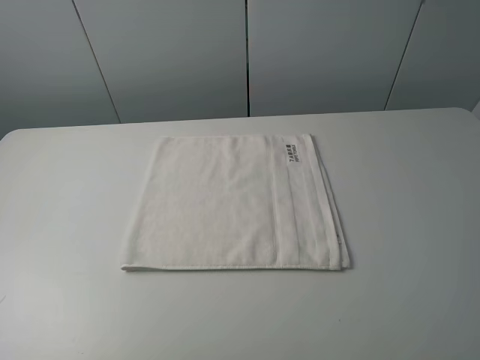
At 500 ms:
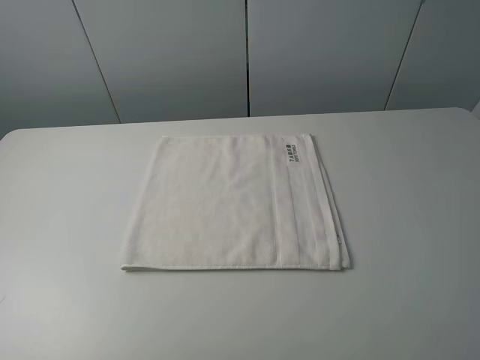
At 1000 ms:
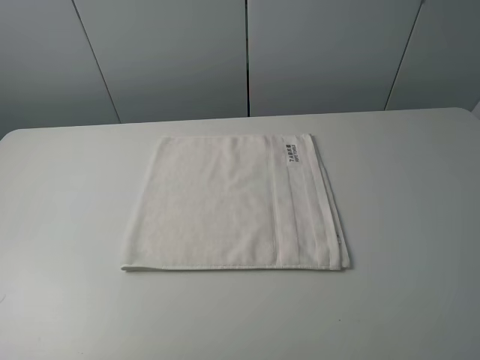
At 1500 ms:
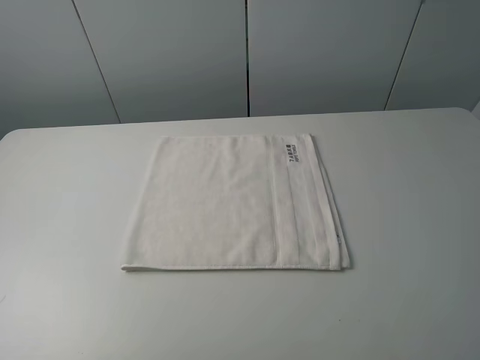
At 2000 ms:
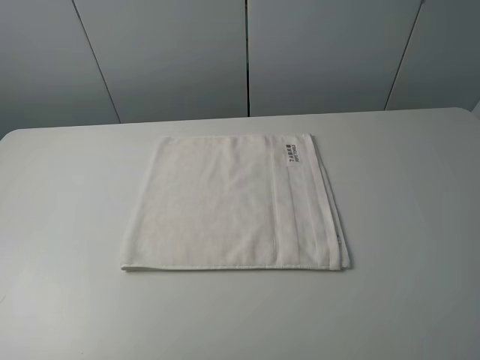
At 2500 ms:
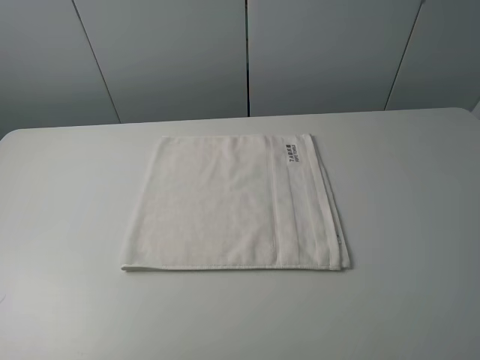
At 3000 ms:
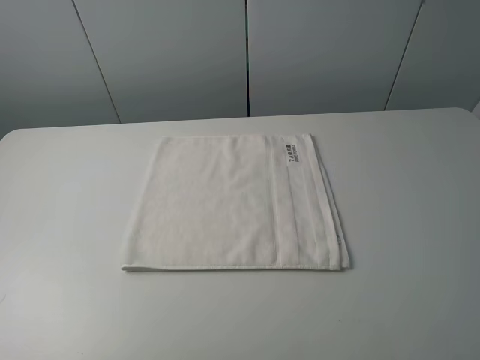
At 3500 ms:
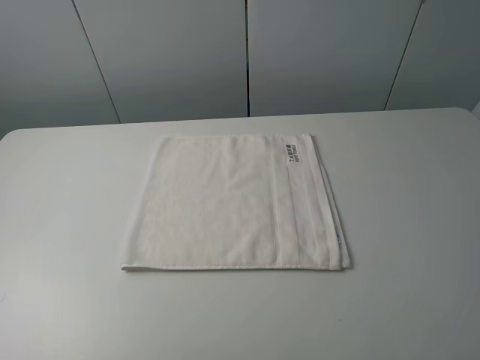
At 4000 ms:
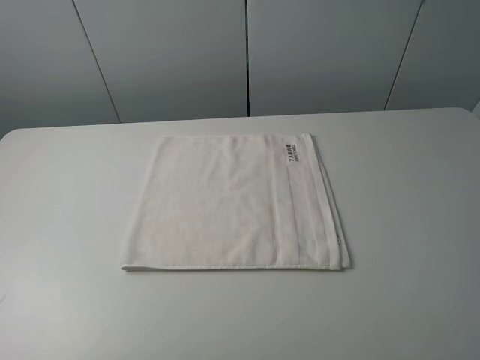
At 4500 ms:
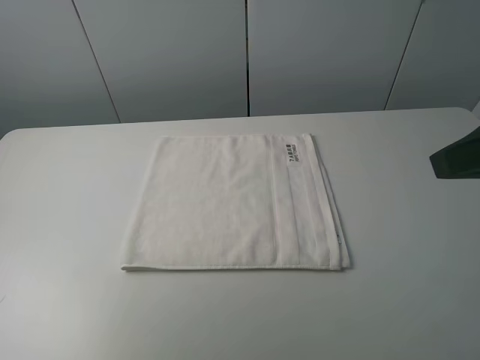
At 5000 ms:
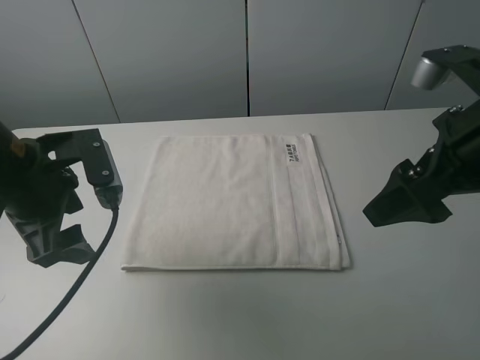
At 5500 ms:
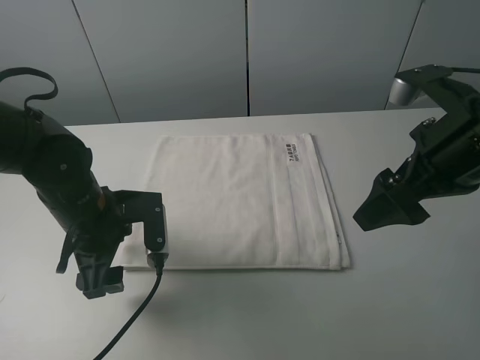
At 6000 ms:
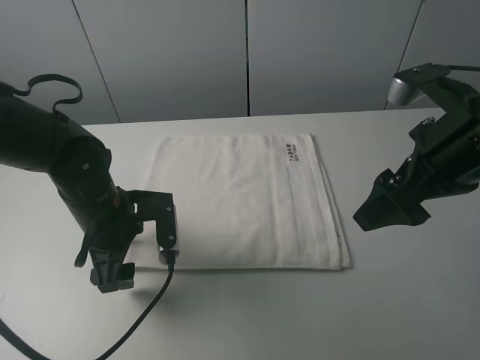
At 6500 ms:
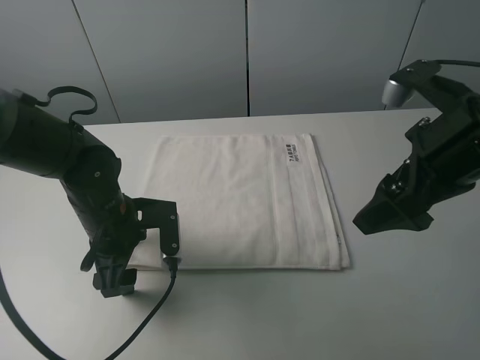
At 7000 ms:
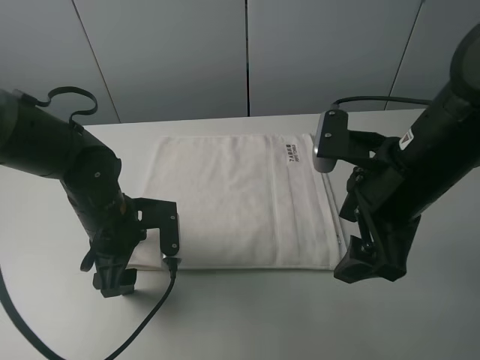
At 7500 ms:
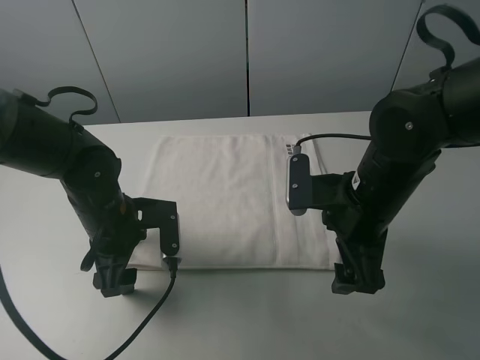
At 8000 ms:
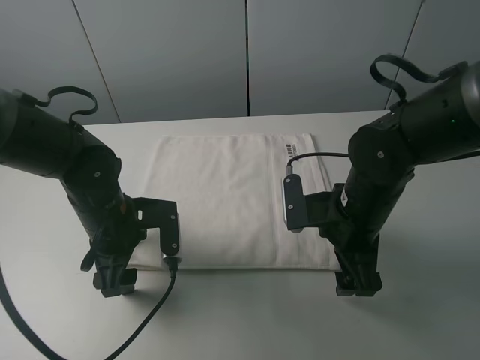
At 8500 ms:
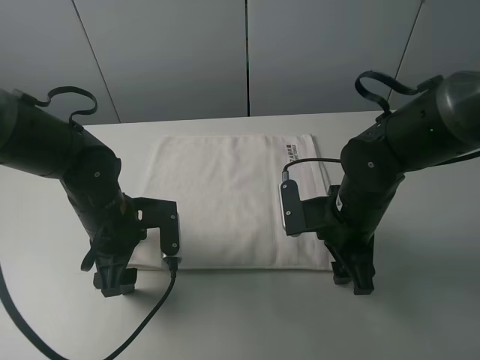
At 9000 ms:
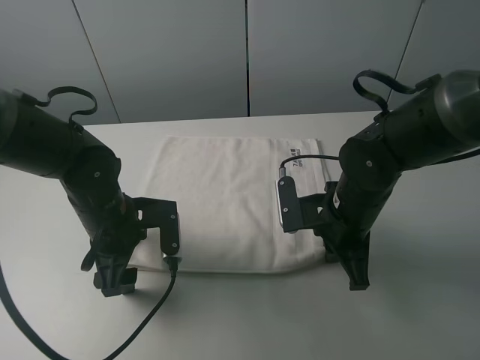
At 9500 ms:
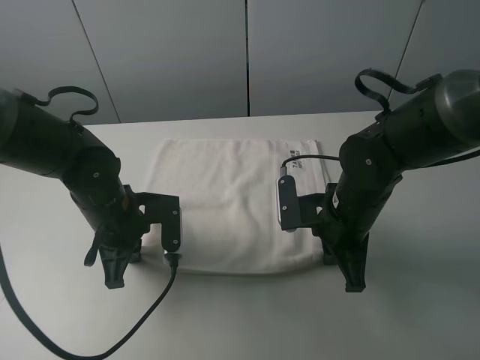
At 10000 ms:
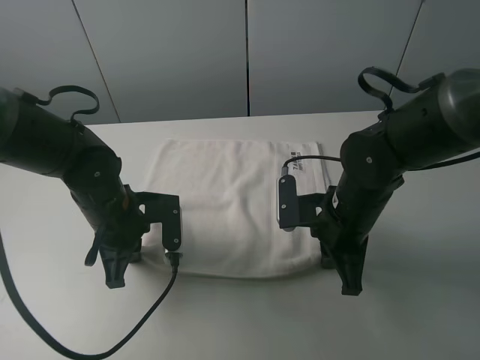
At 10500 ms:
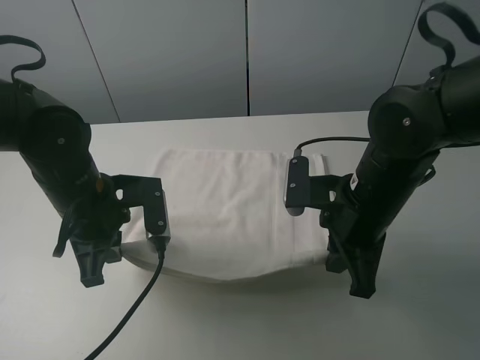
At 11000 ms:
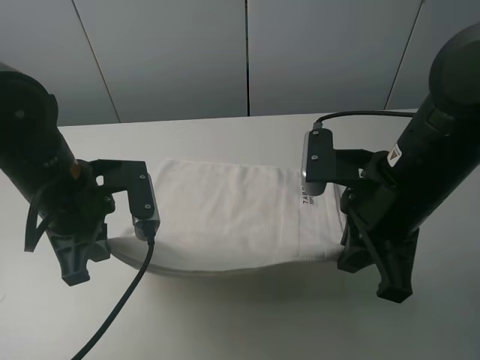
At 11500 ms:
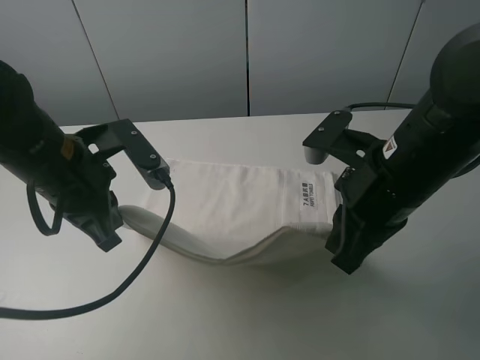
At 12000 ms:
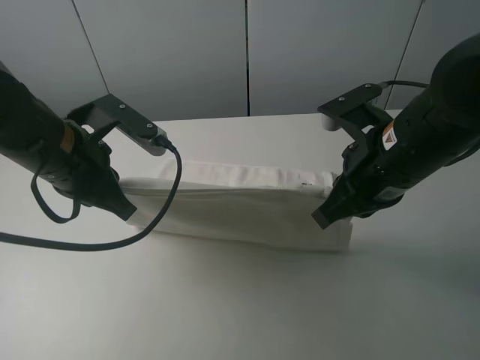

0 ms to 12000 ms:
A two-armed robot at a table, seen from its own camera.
Task of the whole recording: fold the towels on the table.
Step, 0 ms to 8500 ms: Grasp the white towel with the right gripper.
Step, 9000 ms to 9500 ms: Grasp the white towel with the left gripper.
0 ms to 2000 ms: Neither gripper changes place.
4000 ms to 6000 ms: The left gripper moves forward, downward and to the right, approximately 35 cm. Meanwhile the right gripper heads forward and to the left, covering approximately 20 cm.
6000 ms to 8000 ms: The right gripper goes roughly 15 cm downward and to the left.
8000 ms to 10000 ms: The right gripper closes, while the left gripper closes up.
10000 ms to 12000 ms: Both grippers travel together upward, approximately 10 cm.

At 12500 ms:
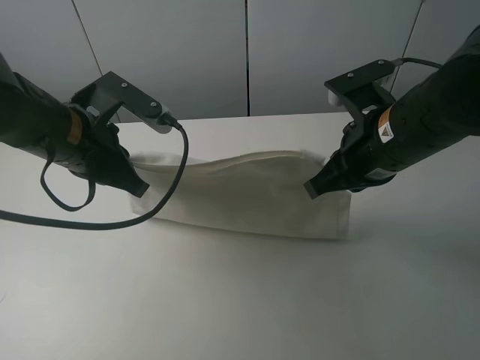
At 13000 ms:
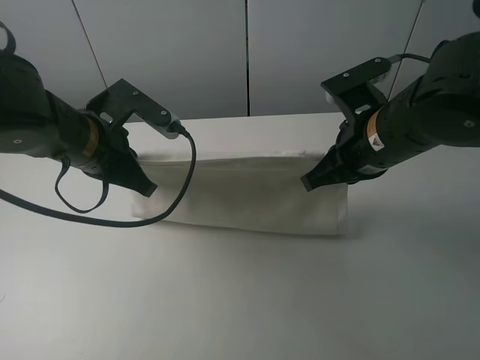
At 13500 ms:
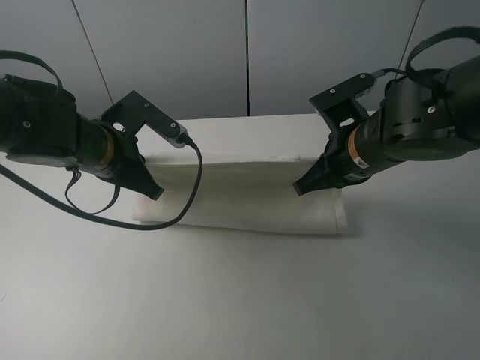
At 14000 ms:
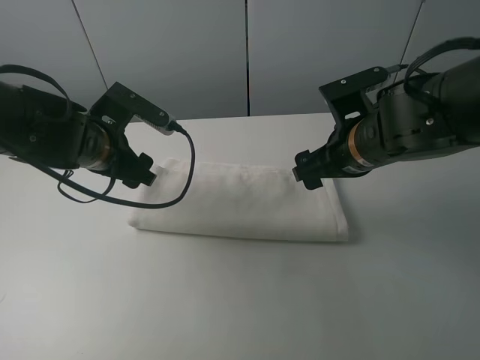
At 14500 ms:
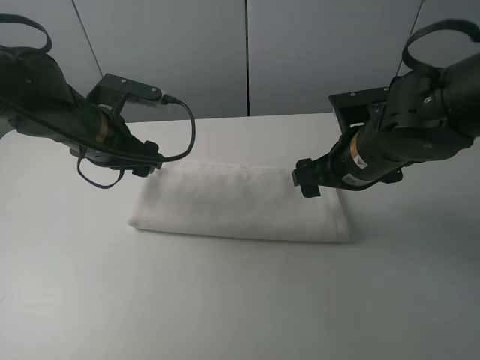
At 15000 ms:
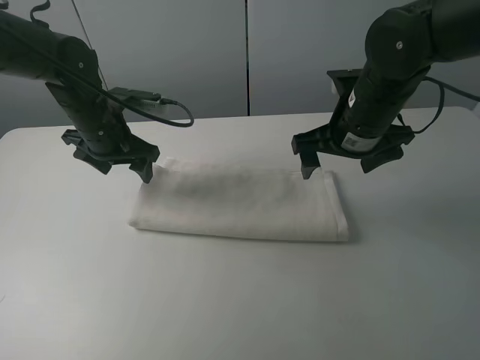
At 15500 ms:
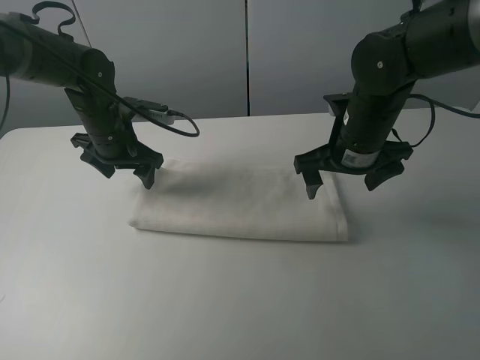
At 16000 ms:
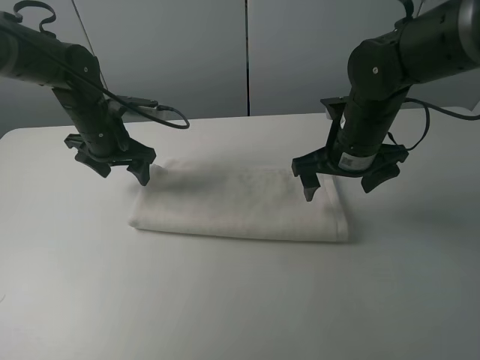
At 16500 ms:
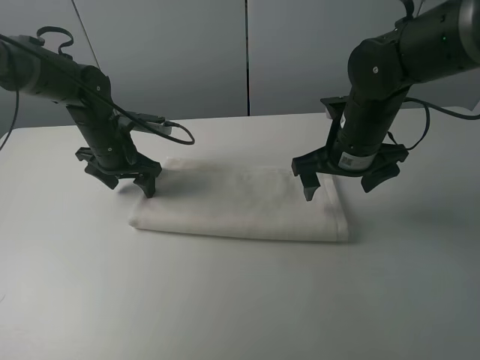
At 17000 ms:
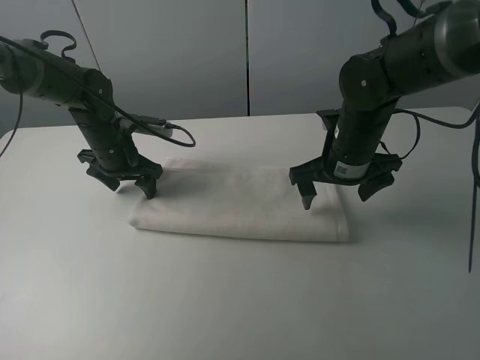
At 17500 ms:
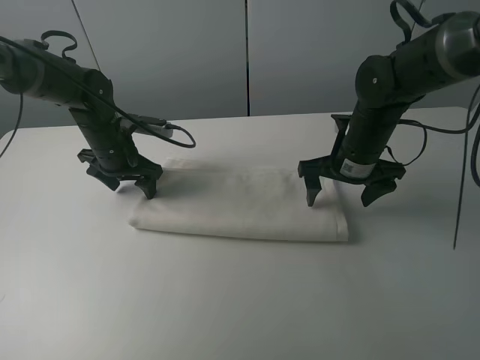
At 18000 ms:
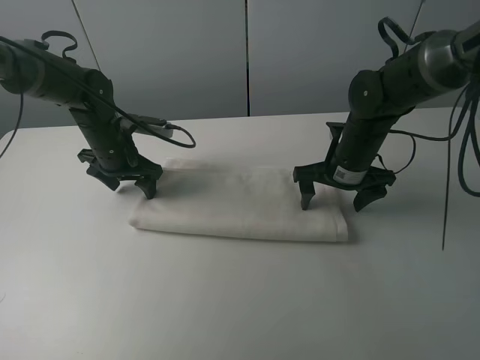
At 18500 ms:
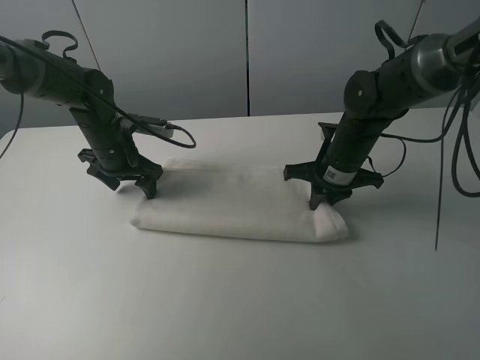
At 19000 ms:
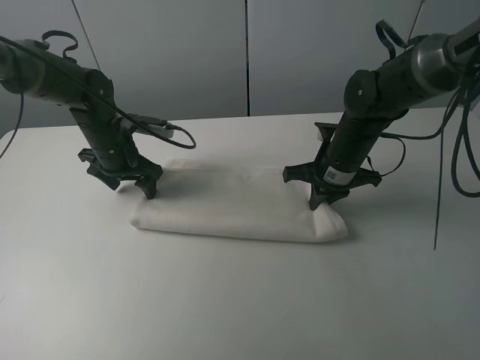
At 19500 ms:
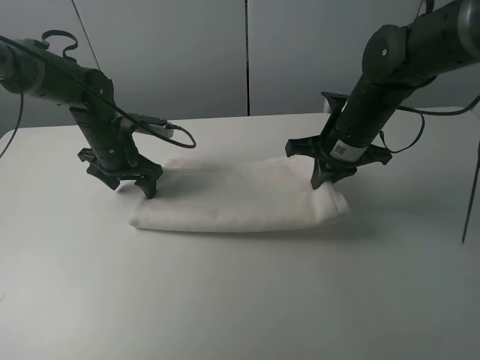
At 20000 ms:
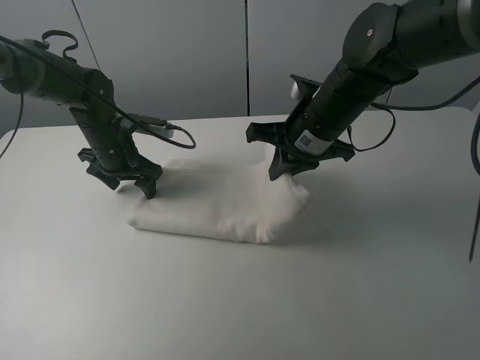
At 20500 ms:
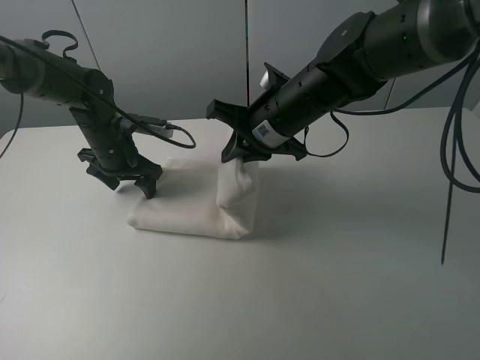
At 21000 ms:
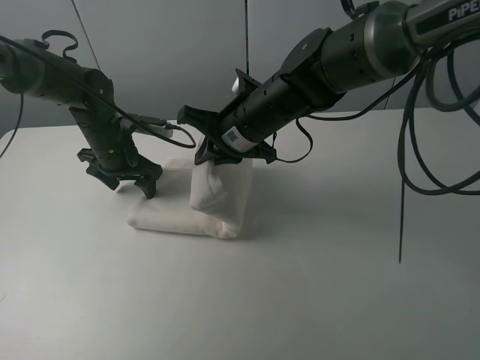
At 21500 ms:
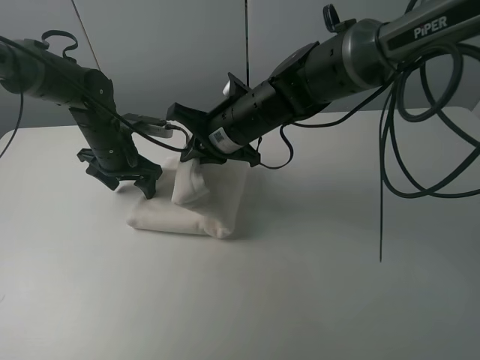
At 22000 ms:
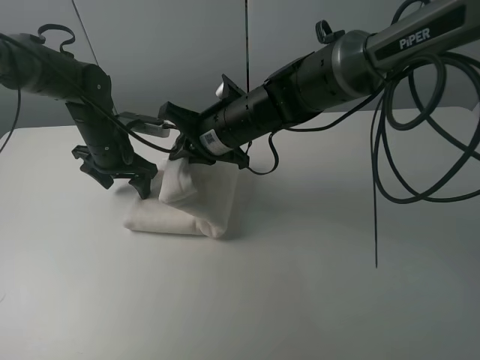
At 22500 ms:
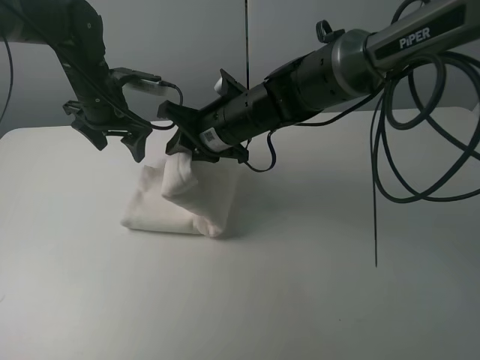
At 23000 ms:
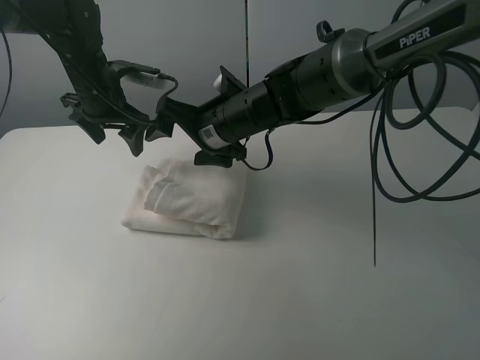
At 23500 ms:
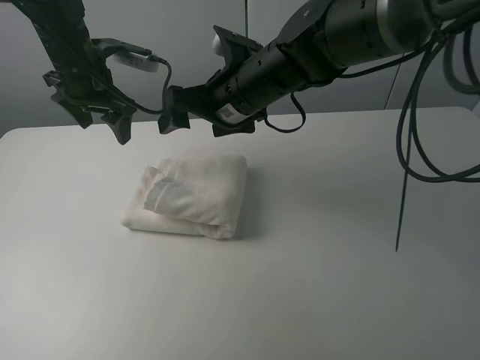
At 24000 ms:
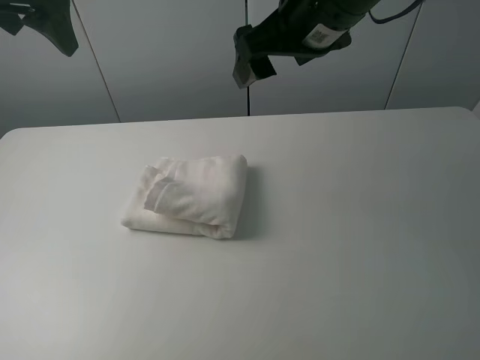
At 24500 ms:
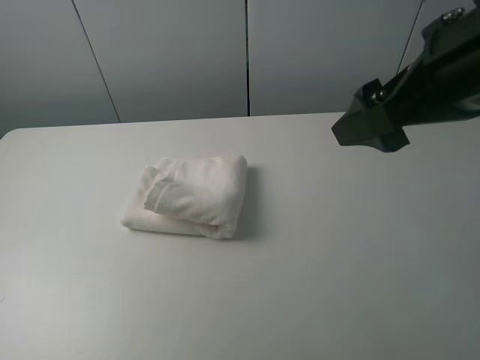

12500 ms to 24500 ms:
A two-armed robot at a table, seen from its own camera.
Task of the whole recording: fold the towels on the table.
Step, 14500 ms to 16500 ms: Press on the orange towel with the left gripper.
Step, 17000 ms to 22500 ms: Fold the white towel from right to left with right gripper.
12500 ms to 14500 ms: The left gripper heads forward, covering some 5 cm, and opens its fingers; the right gripper ends up approximately 5 cm from where it was, and opens up.
14500 ms to 16500 ms: The left gripper travels forward and downward by roughly 10 cm.
16500 ms to 18500 ms: The right gripper is displaced downward by roughly 5 cm, and closes up.
18500 ms to 20500 ms: The right gripper goes about 15 cm to the left and upward.
20500 ms to 22500 ms: The left gripper shifts about 10 cm upward, while the right gripper moves to the left, about 5 cm, and opens.
22500 ms to 24500 ms: The left gripper travels backward and upward by about 35 cm. The right gripper moves to the right, backward and upward, some 30 cm, and opens.

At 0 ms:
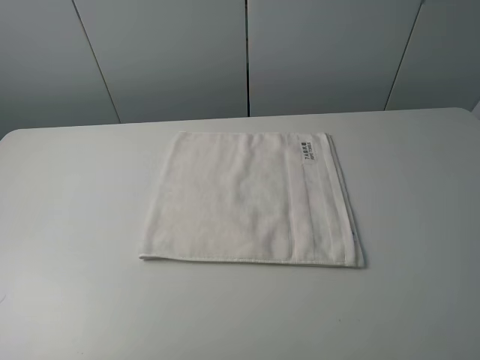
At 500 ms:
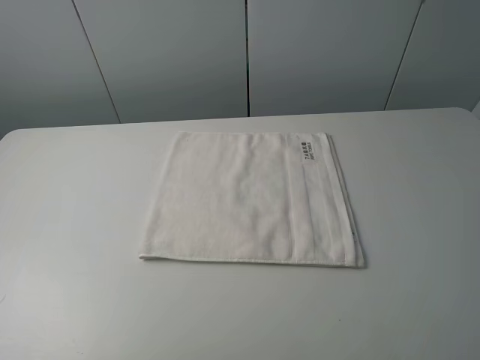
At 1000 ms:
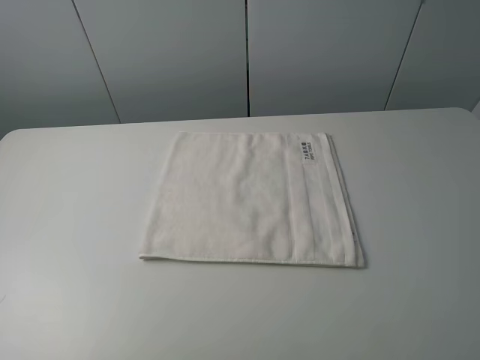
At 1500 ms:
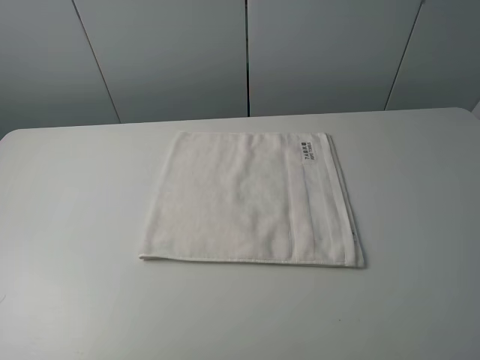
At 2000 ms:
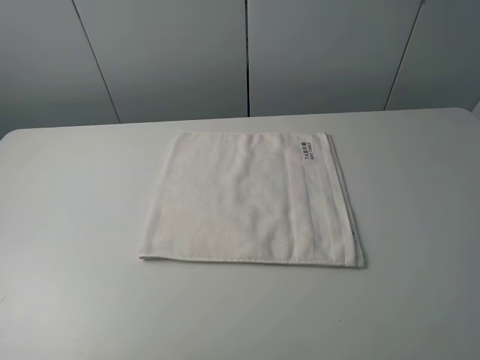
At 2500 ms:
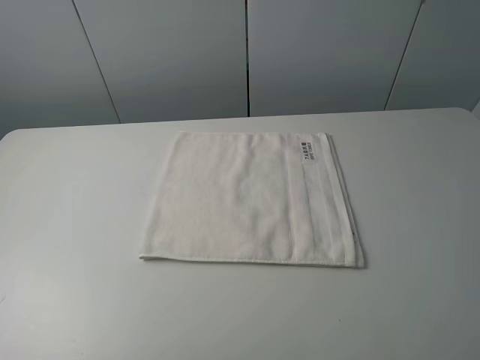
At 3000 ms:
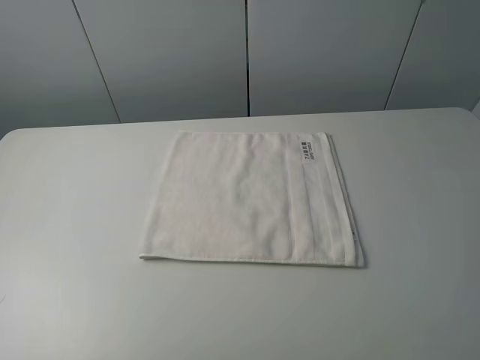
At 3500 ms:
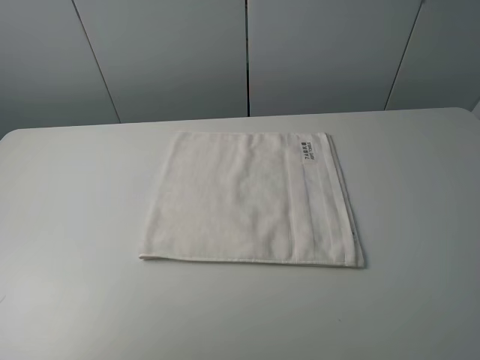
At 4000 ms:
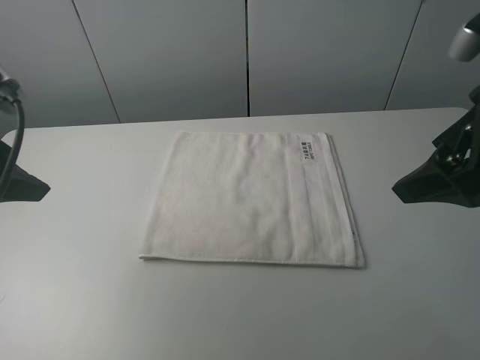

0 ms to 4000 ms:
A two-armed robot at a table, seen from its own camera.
Task of the whole recording: fold the towels on the table.
0 ms to 2000 ms: The two grippers keep their place.
2000 ms to 4000 ms: Both grippers travel together forward, about 20 cm.
